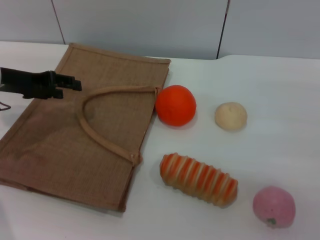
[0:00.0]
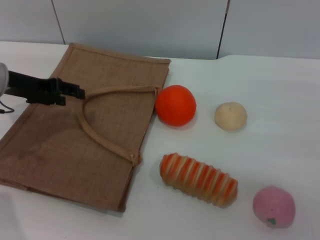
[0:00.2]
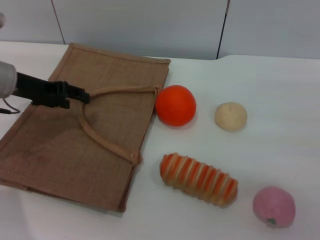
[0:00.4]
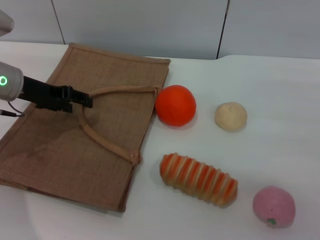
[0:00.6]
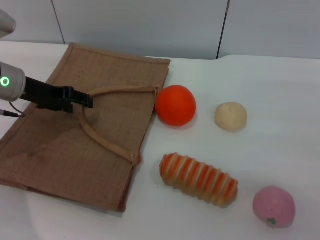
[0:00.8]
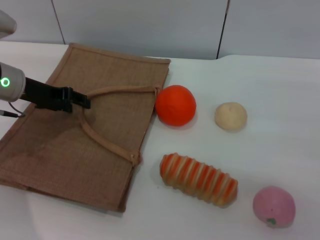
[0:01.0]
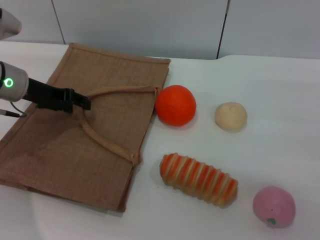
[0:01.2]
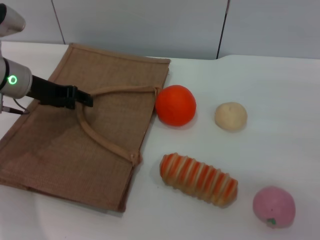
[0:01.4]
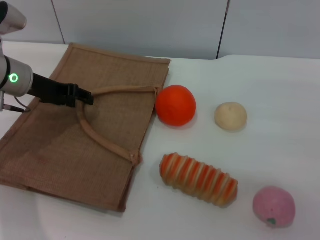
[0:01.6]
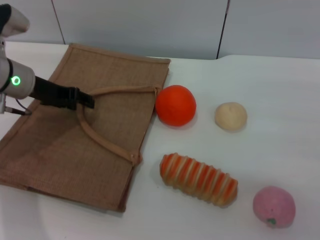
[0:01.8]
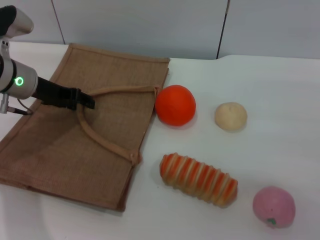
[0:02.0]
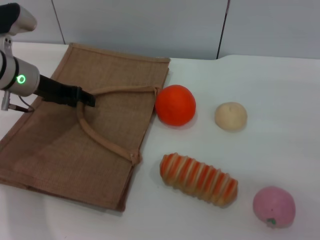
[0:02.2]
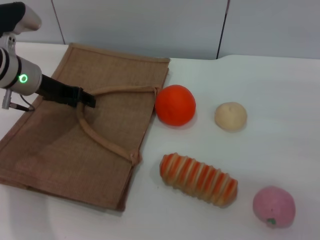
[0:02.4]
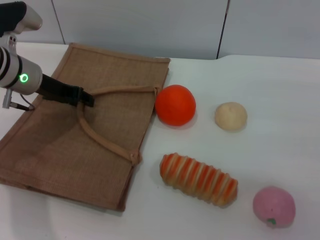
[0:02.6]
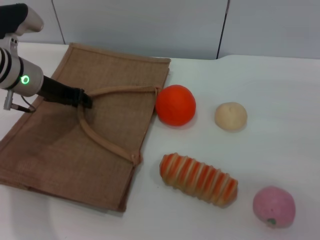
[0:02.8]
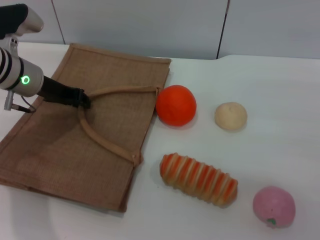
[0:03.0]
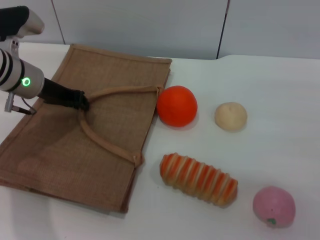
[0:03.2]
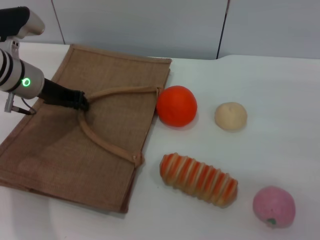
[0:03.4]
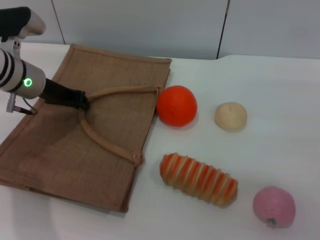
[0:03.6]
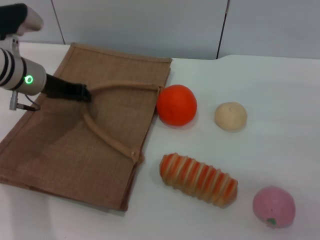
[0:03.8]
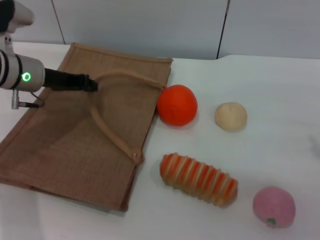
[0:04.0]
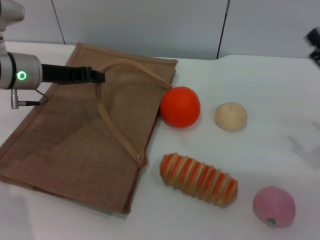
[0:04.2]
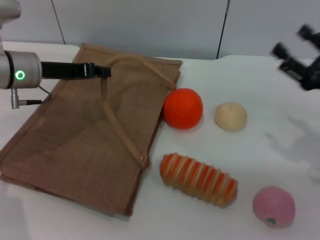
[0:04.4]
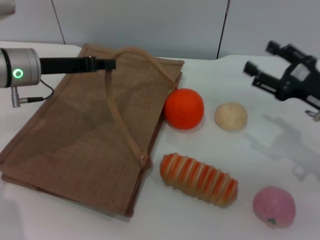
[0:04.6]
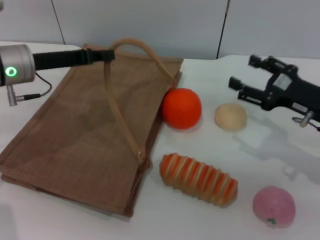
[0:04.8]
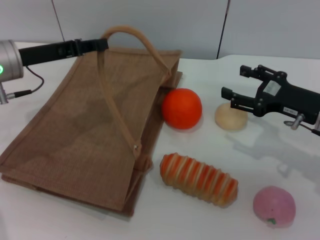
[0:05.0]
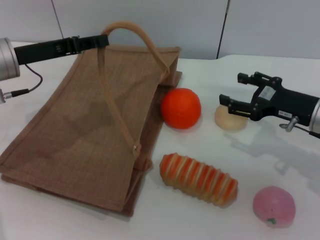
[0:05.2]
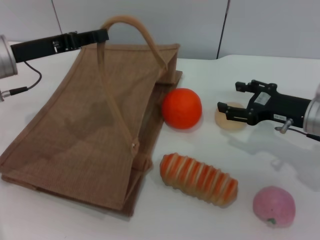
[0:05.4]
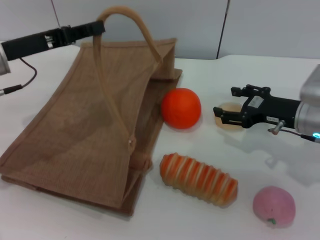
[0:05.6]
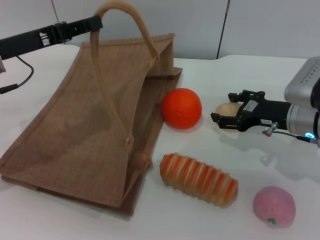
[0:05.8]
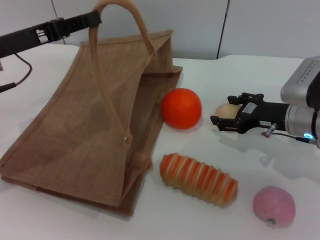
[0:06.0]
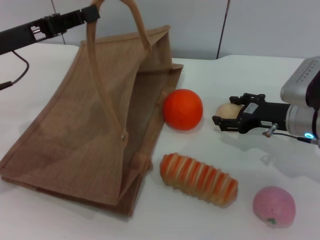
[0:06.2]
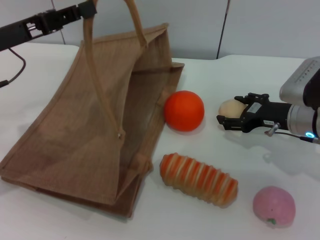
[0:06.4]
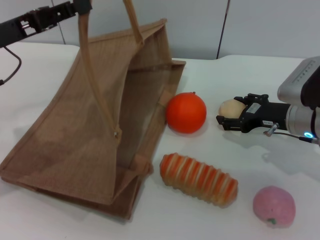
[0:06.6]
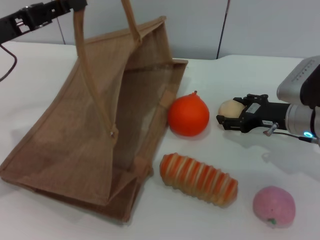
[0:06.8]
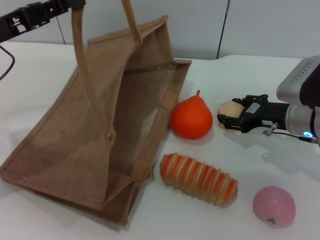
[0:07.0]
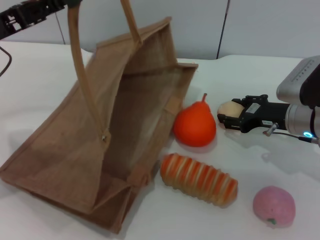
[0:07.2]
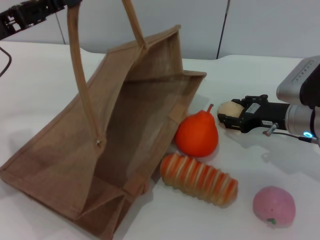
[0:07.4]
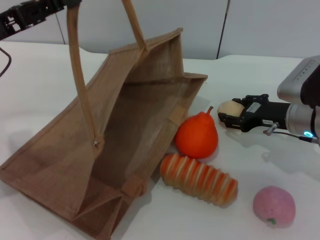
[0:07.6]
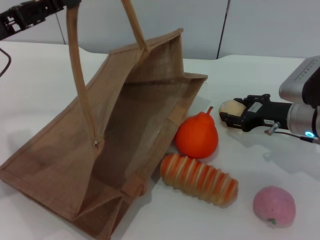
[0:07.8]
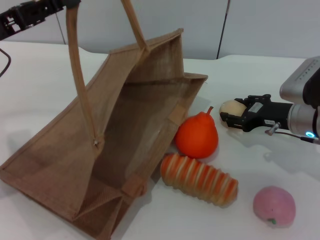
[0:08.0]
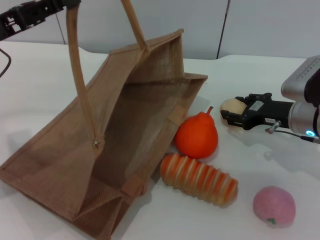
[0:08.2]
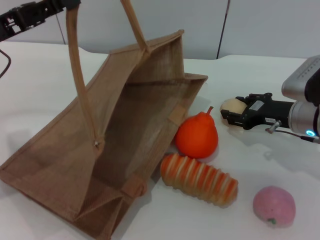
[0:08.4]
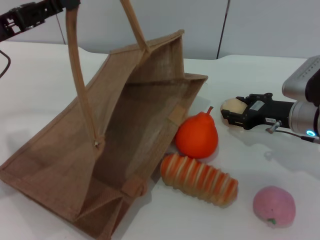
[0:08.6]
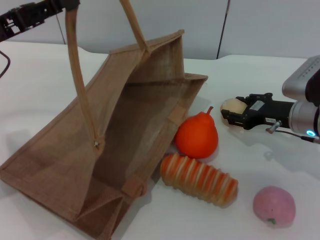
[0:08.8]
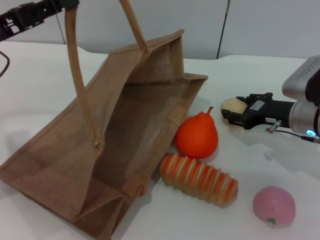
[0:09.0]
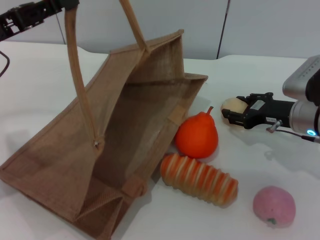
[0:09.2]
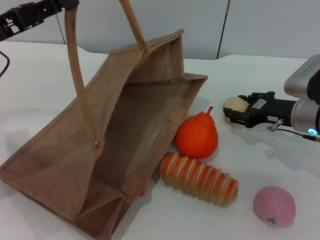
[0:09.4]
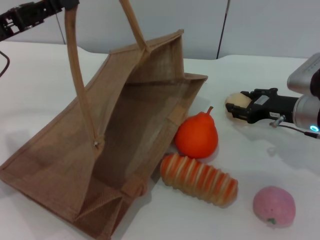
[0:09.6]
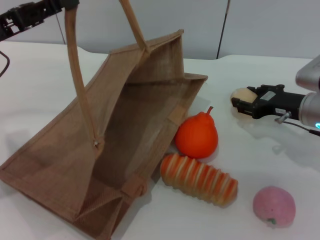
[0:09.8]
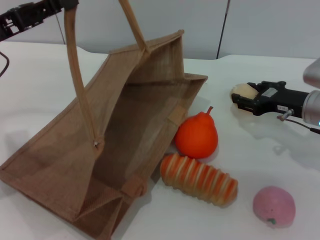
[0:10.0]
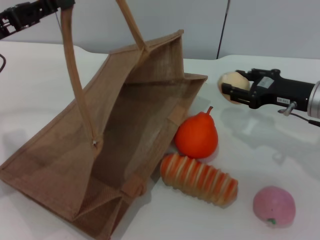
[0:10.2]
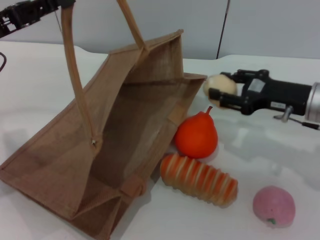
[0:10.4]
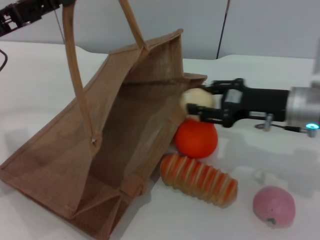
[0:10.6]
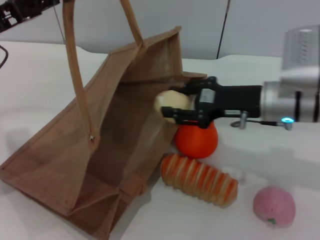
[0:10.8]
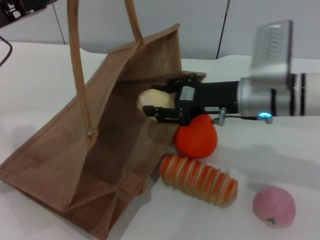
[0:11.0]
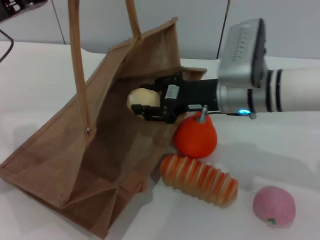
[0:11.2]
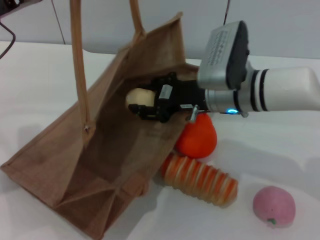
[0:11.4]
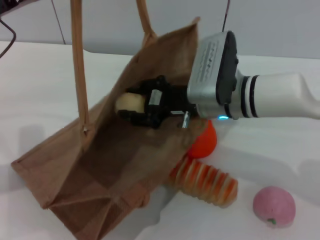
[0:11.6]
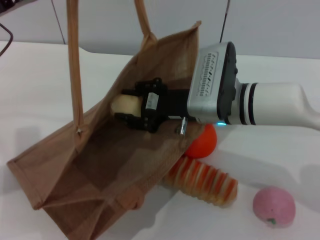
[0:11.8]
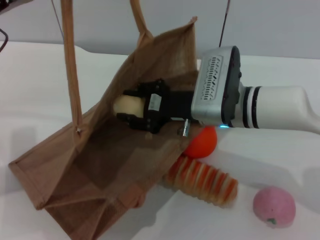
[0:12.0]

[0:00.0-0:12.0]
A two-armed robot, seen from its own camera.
Task of the whole recording: pick up the egg yolk pastry from the table and place it in the brown handbag.
Step, 0:00.0 to 0:04.0: Lift the woven bag with the left gripper to open it.
Step, 0:04.2 to 0:10.0: Pick up the egg yolk pastry with the right gripper.
0:00.0 to 0:01.6: The grippers make only small movements.
0:01.6 to 0:03.0: The grippers move only a little.
0:04.4 to 0:06.0: The right gripper travels to the left and forward by about 10 cm. The left gripper changes place by about 5 cm.
0:06.0 to 0:07.6: The right gripper closes.
0:07.6 to 0:09.0: Both grippers stay about where they are.
0:10.4 to 0:12.0: The right gripper travels to the left by some 15 cm.

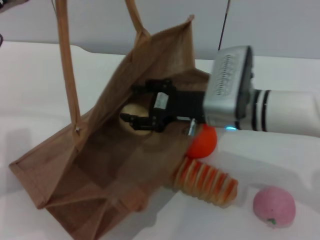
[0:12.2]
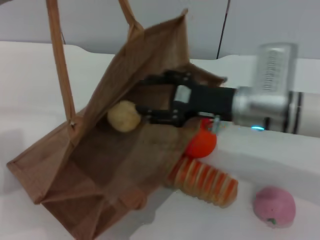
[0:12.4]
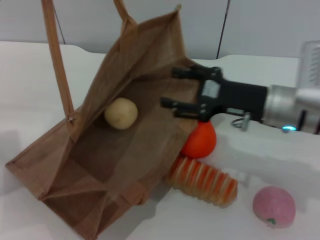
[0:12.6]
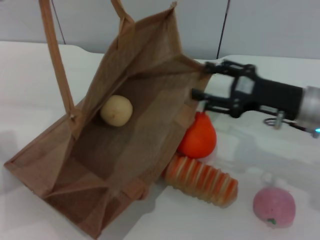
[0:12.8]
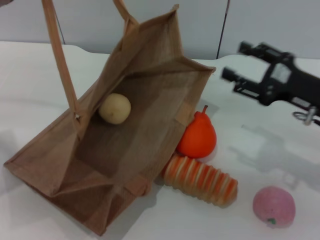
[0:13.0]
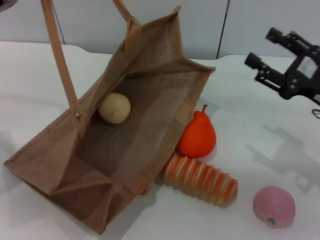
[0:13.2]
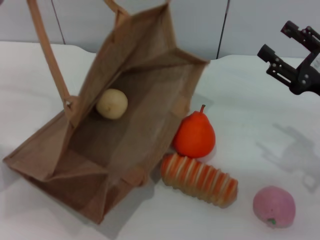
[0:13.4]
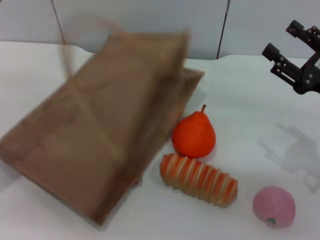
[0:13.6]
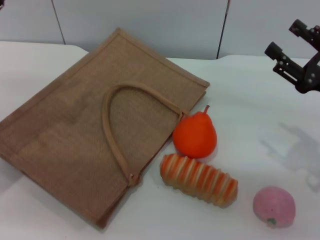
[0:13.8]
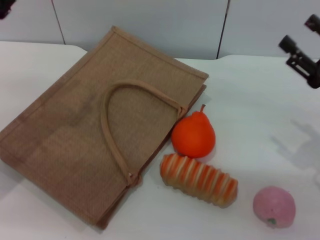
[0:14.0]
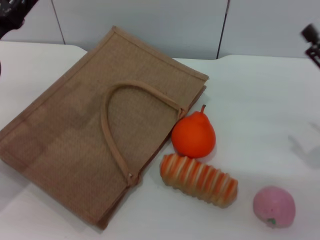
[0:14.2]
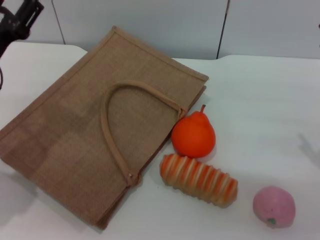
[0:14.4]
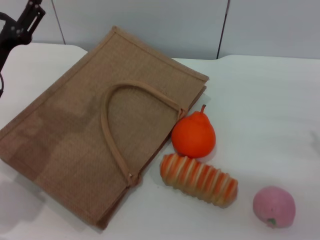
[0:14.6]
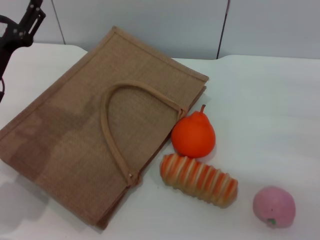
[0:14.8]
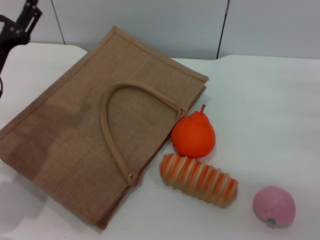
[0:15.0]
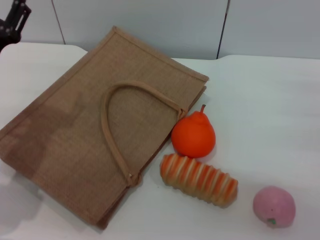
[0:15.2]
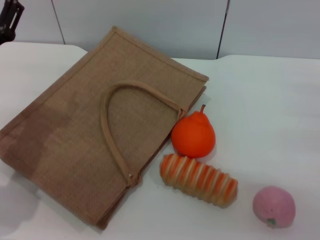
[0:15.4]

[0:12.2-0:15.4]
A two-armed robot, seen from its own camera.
Task of the whole recording: pick up the egg yolk pastry from the table and place it in the brown handbag.
Step, 0:12.8 to 0:14.0: Lower the woven bag with the left gripper to close it.
0:12.2 to 0:13.8: The left gripper shifts some 5 cm downward, while the right gripper travels to the right by about 20 cm, and opens up.
0:13.8 to 0:15.4: The left gripper is displaced downward by approximately 5 cm, and opens its fingers, while the right gripper shifts roughly 5 cm to the right.
